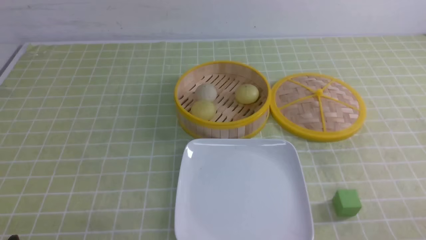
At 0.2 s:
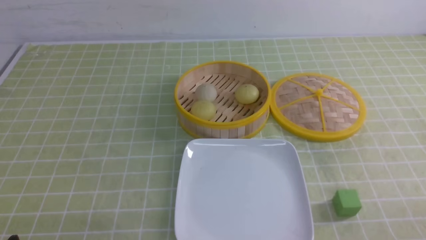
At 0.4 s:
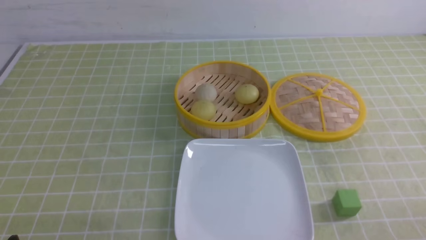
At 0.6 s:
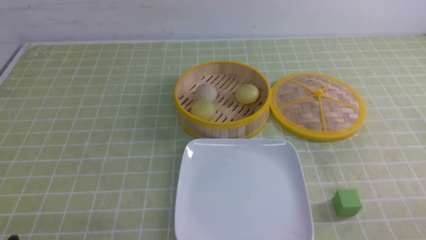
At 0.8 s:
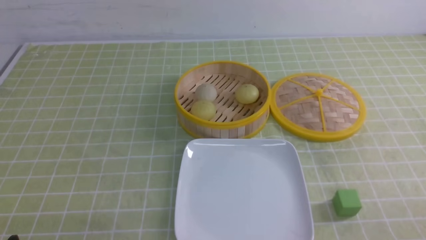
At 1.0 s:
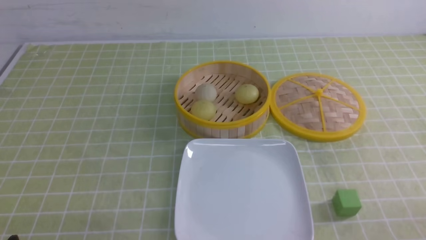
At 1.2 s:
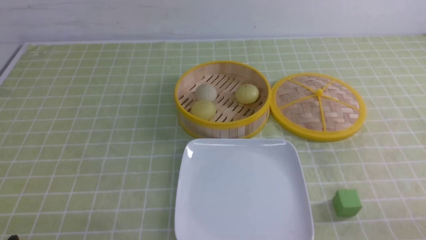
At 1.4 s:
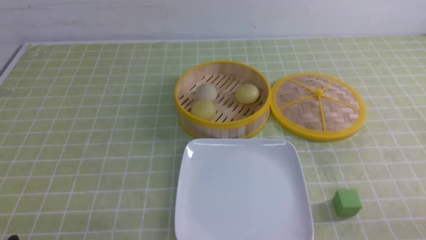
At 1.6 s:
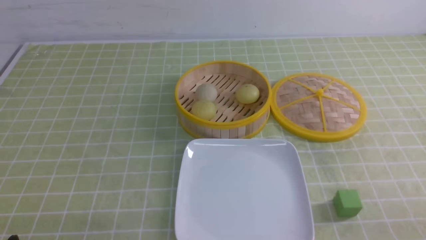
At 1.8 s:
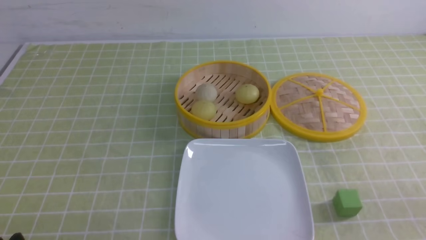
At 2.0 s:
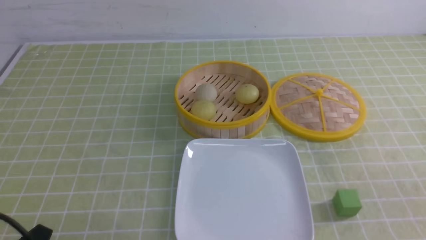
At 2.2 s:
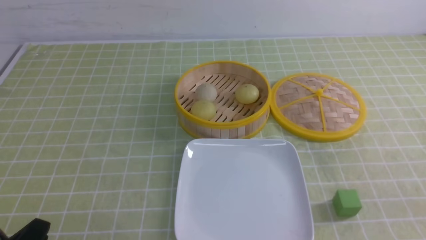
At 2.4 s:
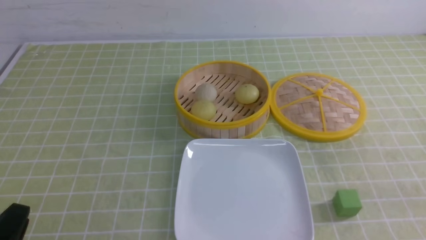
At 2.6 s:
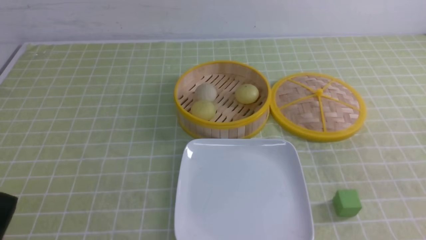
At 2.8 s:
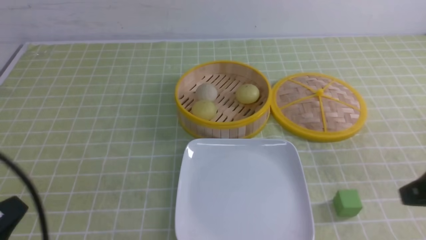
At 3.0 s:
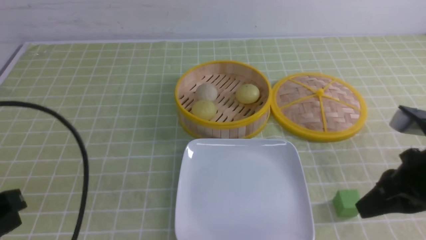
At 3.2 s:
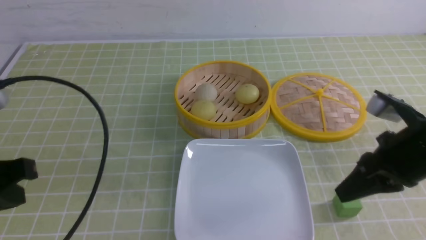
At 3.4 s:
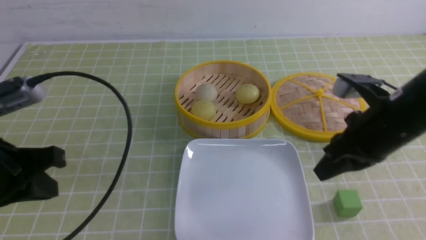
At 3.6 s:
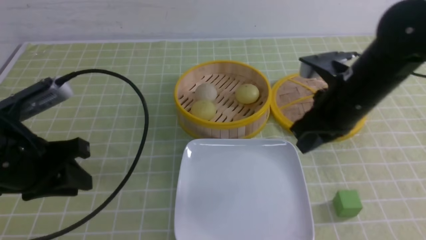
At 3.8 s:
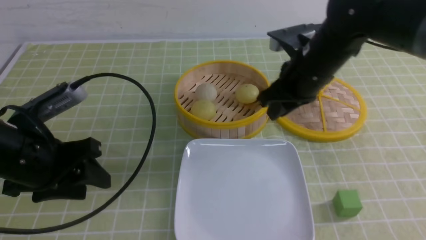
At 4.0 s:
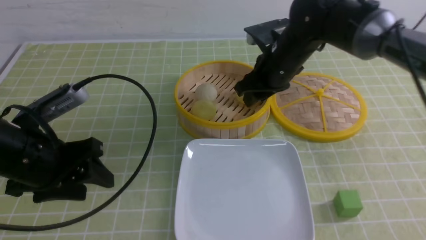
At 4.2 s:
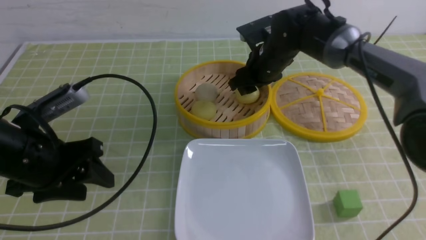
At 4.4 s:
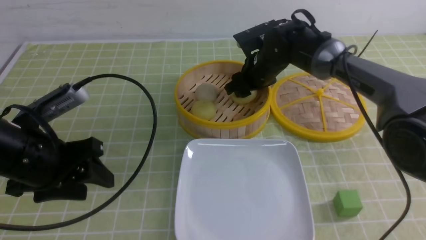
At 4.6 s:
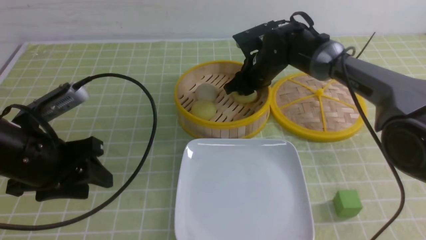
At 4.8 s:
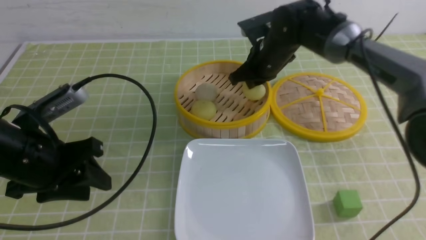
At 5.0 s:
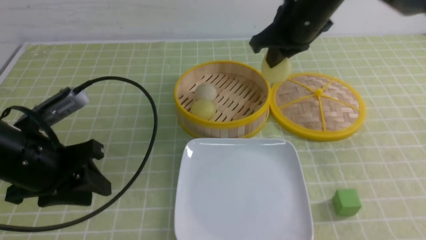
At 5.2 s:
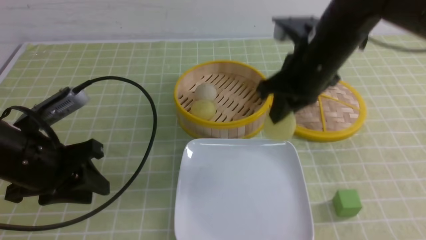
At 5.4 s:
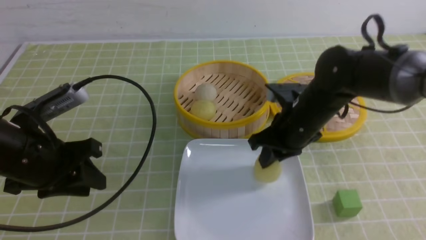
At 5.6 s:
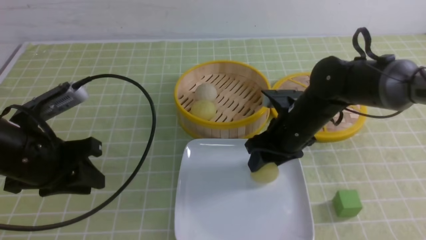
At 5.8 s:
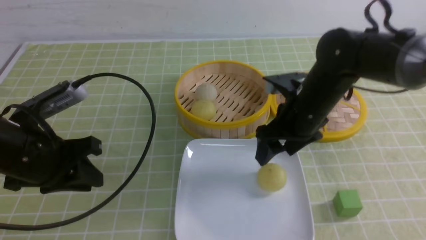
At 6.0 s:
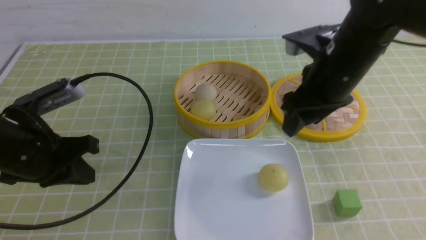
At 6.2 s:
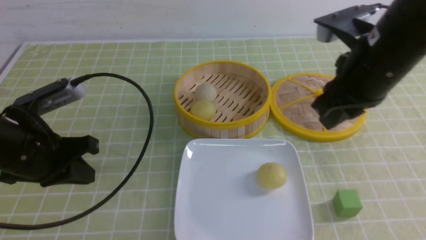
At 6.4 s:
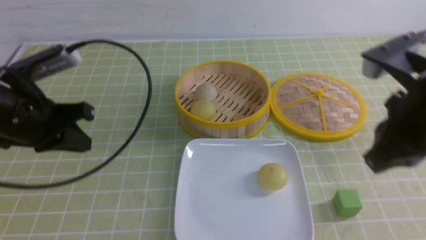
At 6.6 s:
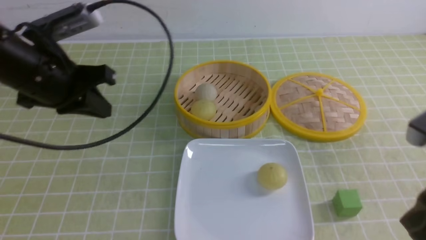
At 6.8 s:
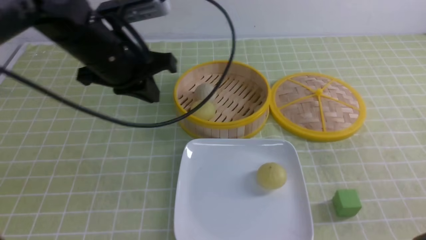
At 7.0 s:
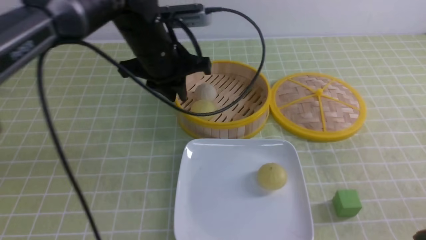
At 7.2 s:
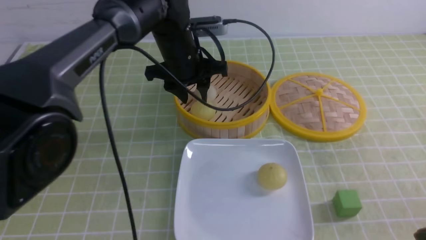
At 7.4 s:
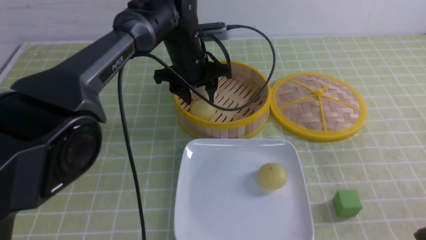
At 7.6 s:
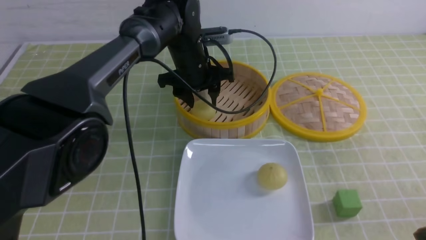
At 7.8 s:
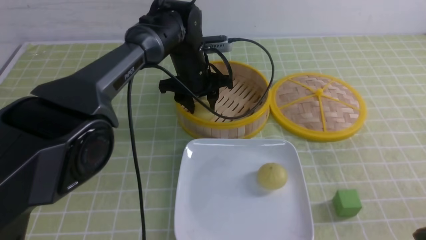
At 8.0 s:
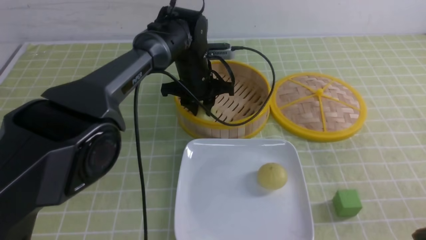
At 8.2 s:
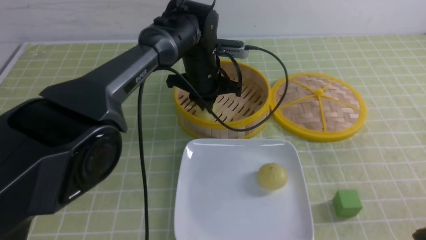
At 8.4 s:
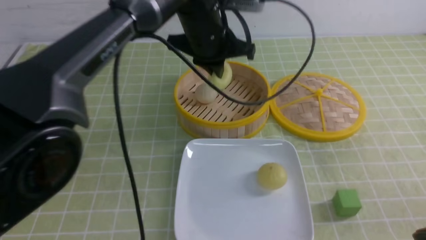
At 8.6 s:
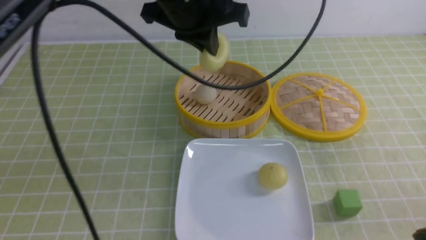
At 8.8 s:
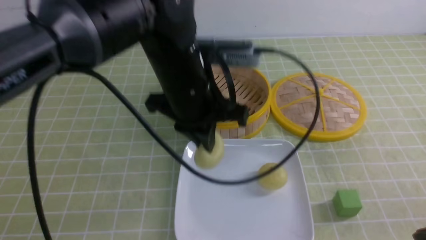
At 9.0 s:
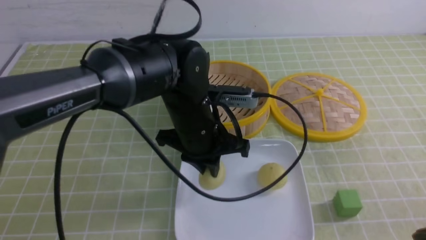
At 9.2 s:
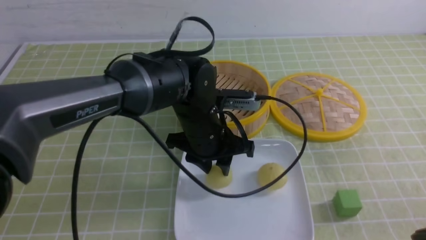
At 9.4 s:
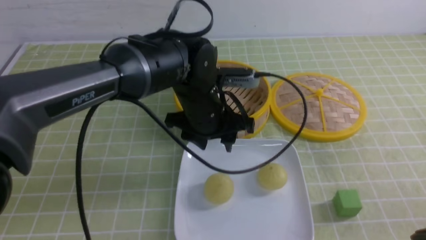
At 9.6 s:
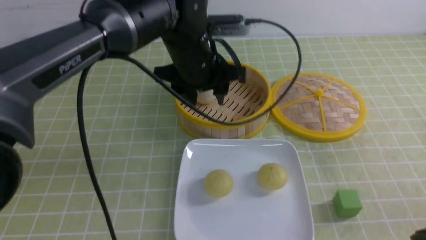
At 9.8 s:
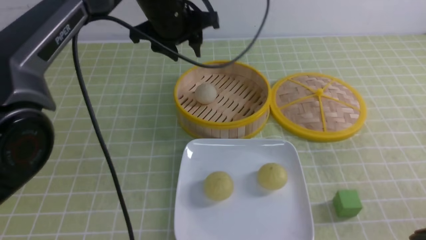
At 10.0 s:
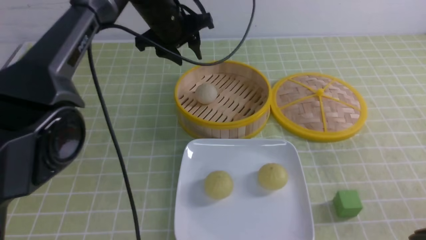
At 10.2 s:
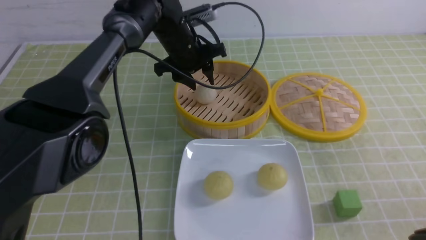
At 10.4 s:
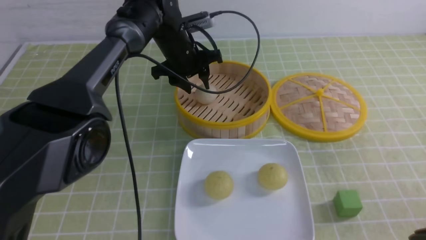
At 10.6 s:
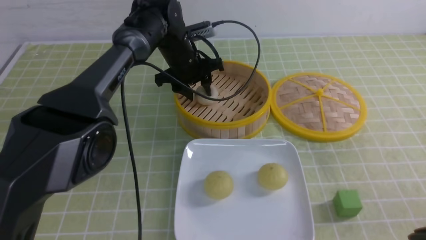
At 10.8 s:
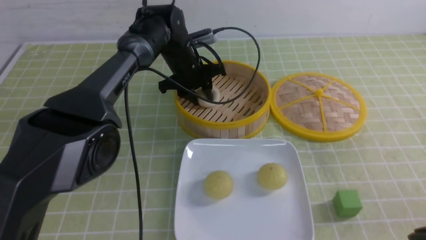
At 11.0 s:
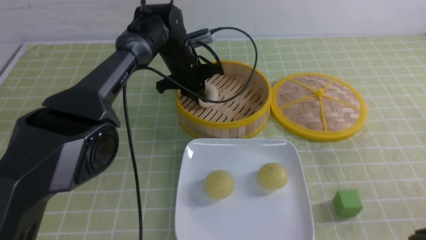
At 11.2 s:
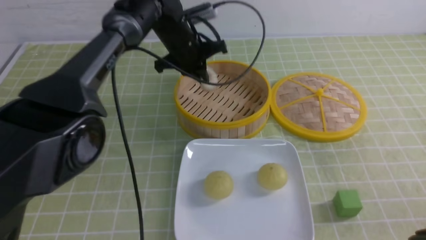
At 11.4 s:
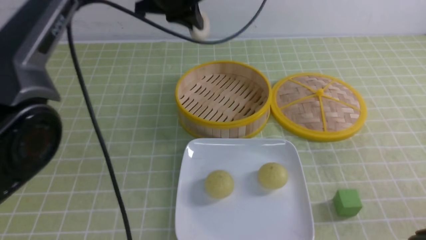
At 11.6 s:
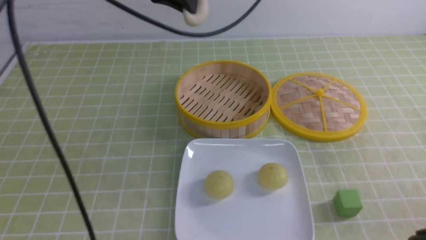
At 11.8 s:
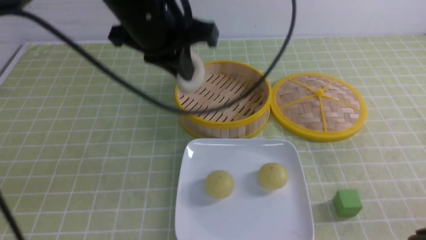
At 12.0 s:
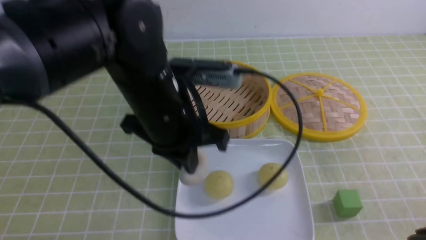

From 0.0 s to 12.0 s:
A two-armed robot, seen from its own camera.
Step, from 0.0 s to 4.6 s: use the right arm to grab the steamed stuffed bun that is closest to it.
Step, from 4.8 s to 5.4 s: use the right arm to put the steamed stuffed bun into the plate.
Step, from 5.8 s to 8.0 s: use the left arm to grab the steamed stuffed bun that is closest to it.
Step, from 8.2 s to 9.2 s: use the left arm to put the steamed stuffed bun into the plate.
Step, from 9.4 s to 10.8 s: use the left arm to grab the steamed stuffed bun that is closest to it.
From 1.6 s to 3.0 s: The right gripper moves forward and upward, some 15 cm, and closes up, while the left gripper goes roughly 15 cm upward, and closes.
From 3.0 s to 4.4 s: The right gripper is displaced forward and to the left by approximately 35 cm, and opens its fingers. The left gripper heads forward, covering approximately 15 cm, and opens its fingers.
From 4.4 s to 6.0 s: The right gripper is displaced backward and upward by about 20 cm, and closes, then reopens; the left gripper closes.
From 6.0 s to 7.6 s: The right gripper travels backward and to the right by about 25 cm, and closes its fingers. Meanwhile the left gripper moves forward and to the right, roughly 30 cm, and opens.
From 7.6 s to 9.0 s: The left gripper moves backward, about 15 cm, and closes up.
From 9.0 s to 10.4 s: The left gripper heads forward, covering approximately 20 cm, and opens.
From 10.4 s to 12.0 s: The left gripper moves backward, some 25 cm, and closes.

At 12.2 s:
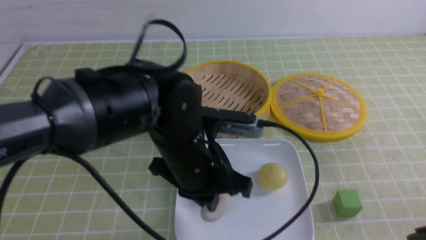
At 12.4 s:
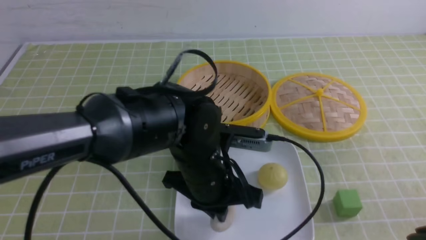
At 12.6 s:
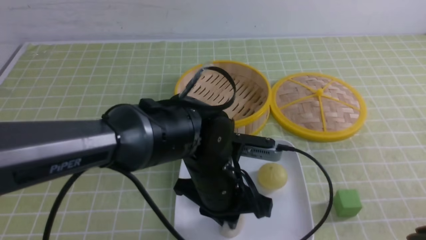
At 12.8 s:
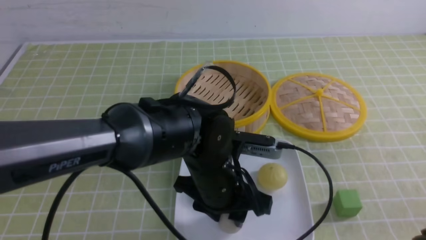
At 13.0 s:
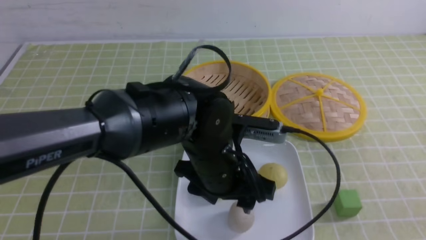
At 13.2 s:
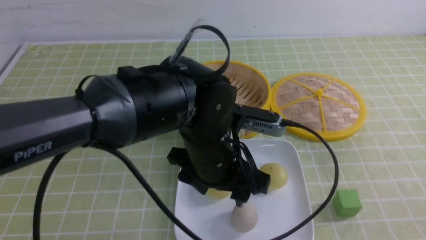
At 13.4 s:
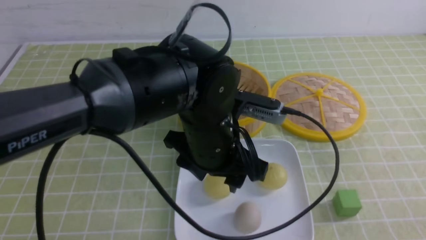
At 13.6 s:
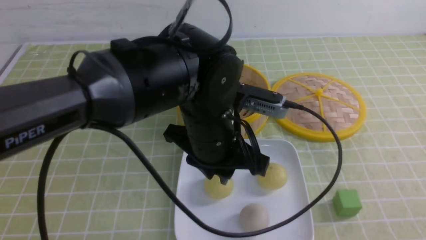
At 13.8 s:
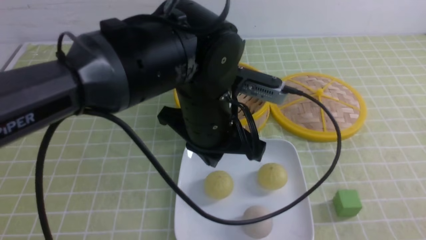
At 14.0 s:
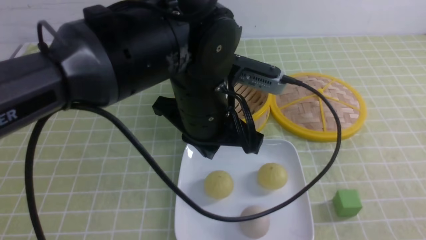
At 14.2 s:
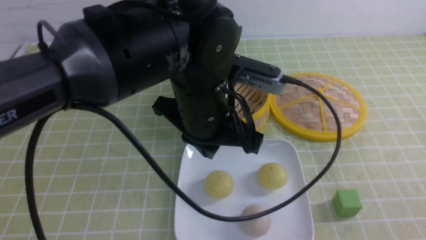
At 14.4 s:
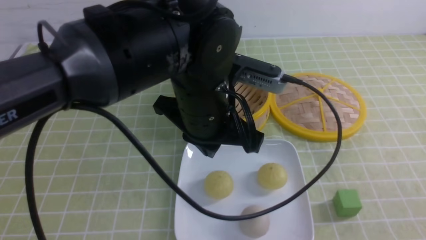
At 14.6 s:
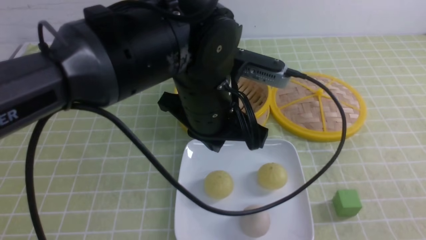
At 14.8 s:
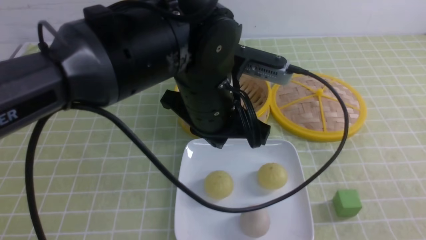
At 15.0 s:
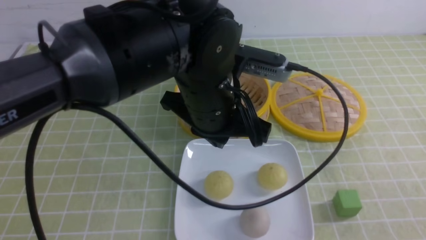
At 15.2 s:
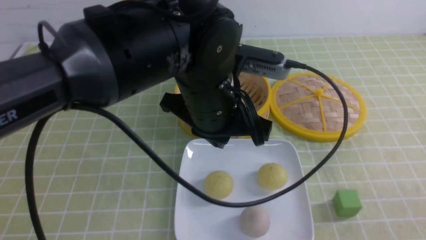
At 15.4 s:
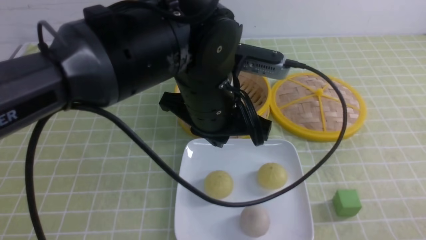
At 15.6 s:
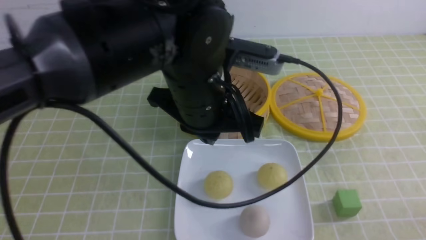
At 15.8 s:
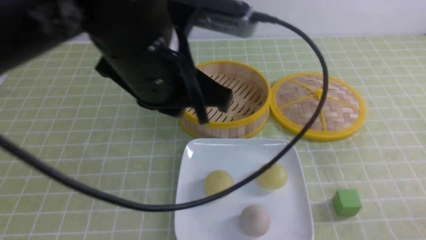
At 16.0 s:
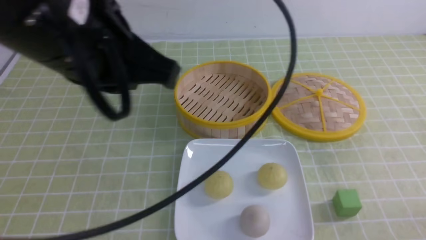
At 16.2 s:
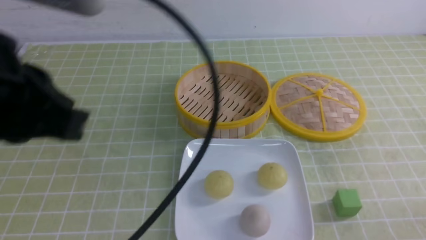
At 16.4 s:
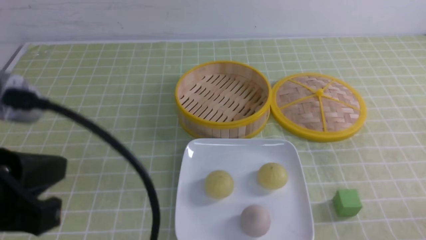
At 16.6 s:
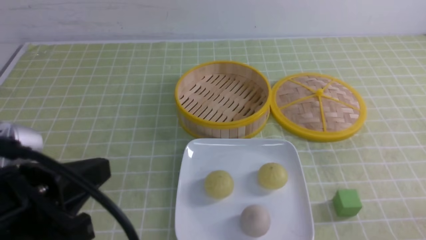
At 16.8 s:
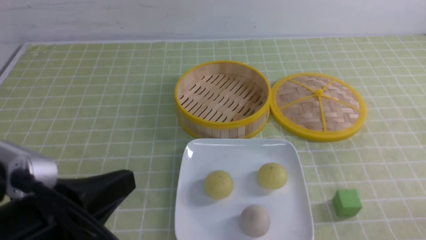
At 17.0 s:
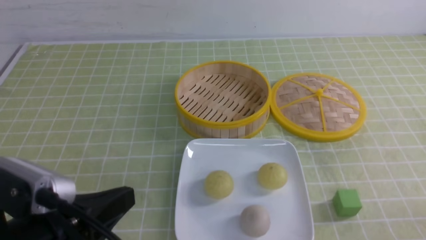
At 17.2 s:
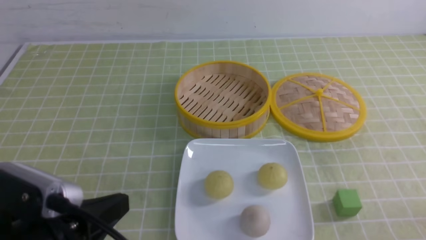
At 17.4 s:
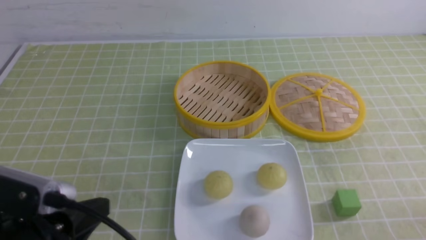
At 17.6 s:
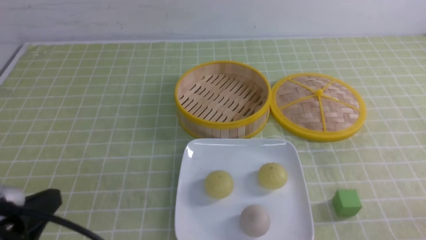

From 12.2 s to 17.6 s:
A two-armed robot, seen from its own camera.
From 12.2 s to 13.6 s: The right gripper shifts about 10 cm backward, and closes its fingers. Meanwhile the left gripper opens its fingers.
From 13.6 s to 15.0 s: The left gripper closes up. Meanwhile the right gripper moves downward, roughly 5 cm.
From 15.0 s to 16.2 s: The right gripper shifts some 5 cm downward. The left gripper travels to the left, backward and upward by about 25 cm.
From 16.2 s to 17.6 s: The left gripper moves downward, some 15 cm.
